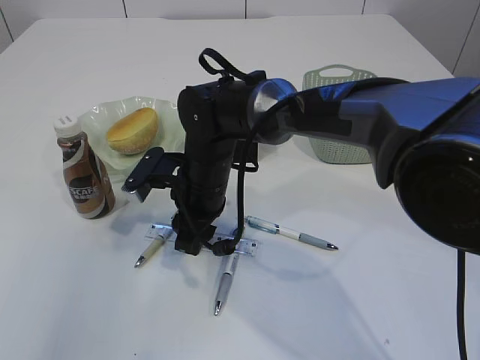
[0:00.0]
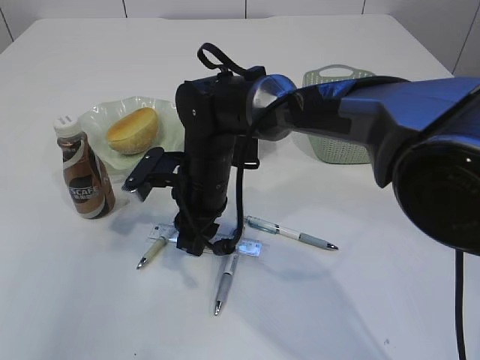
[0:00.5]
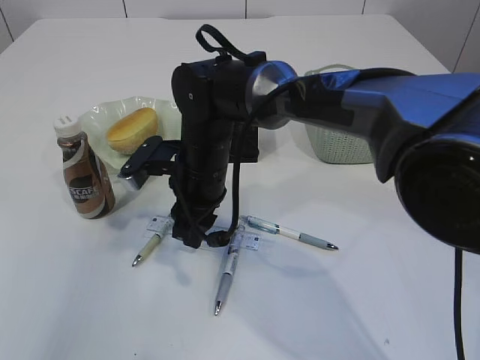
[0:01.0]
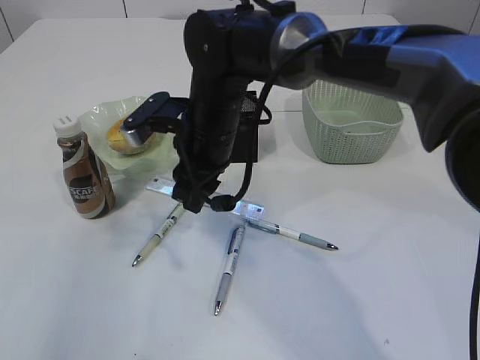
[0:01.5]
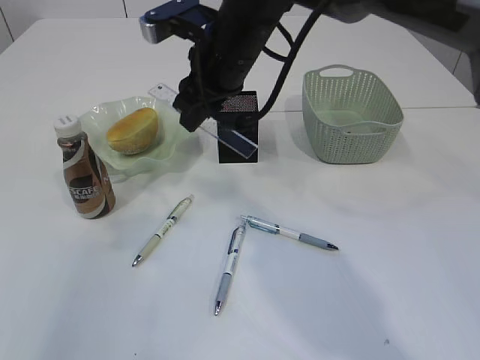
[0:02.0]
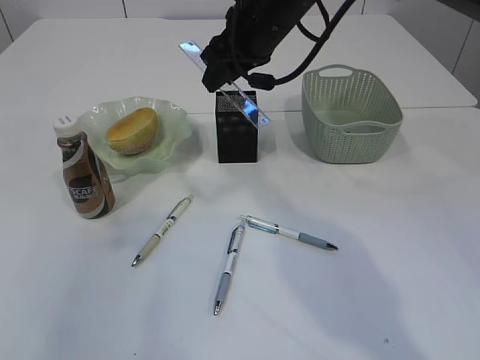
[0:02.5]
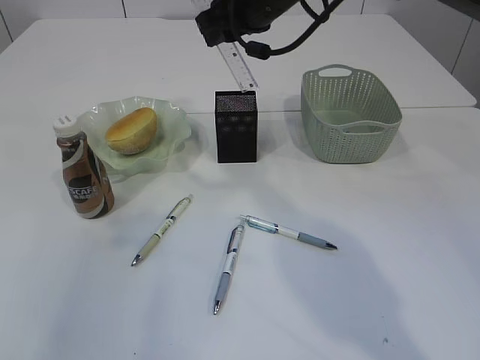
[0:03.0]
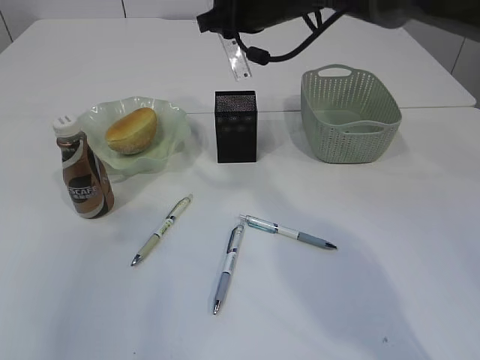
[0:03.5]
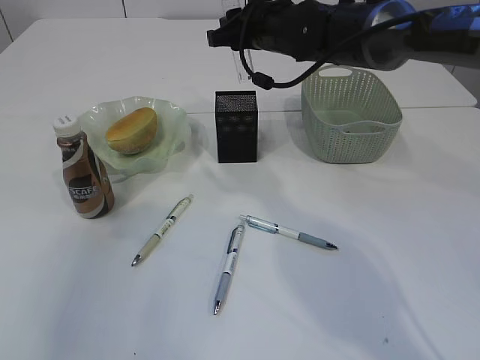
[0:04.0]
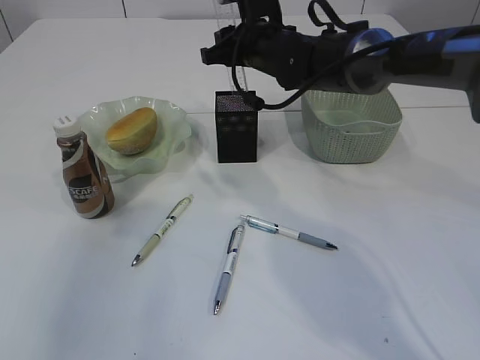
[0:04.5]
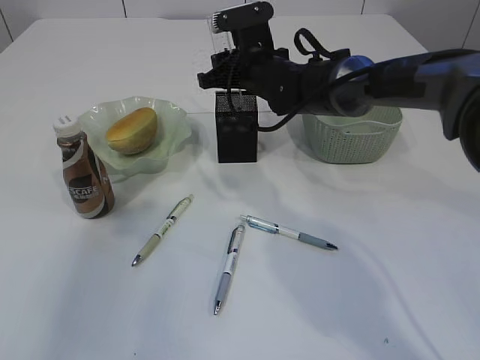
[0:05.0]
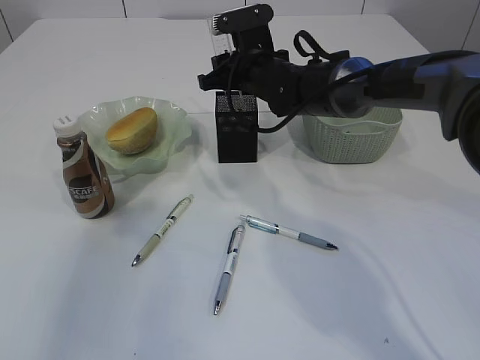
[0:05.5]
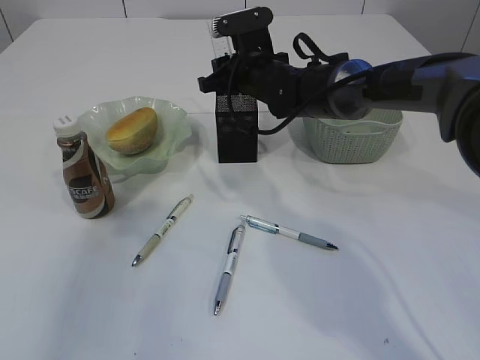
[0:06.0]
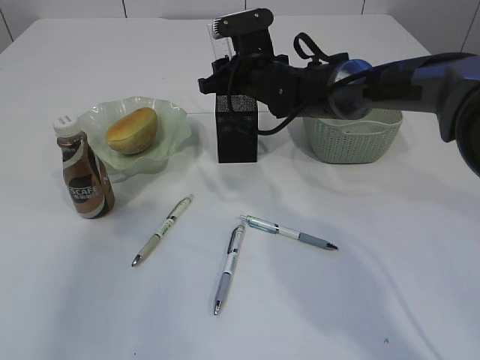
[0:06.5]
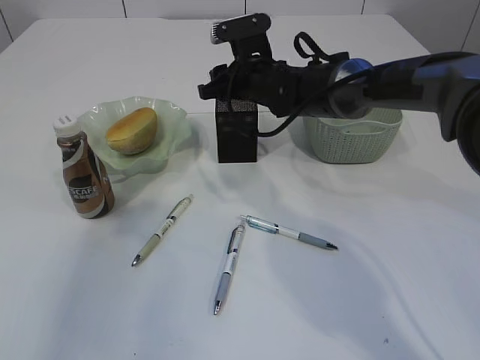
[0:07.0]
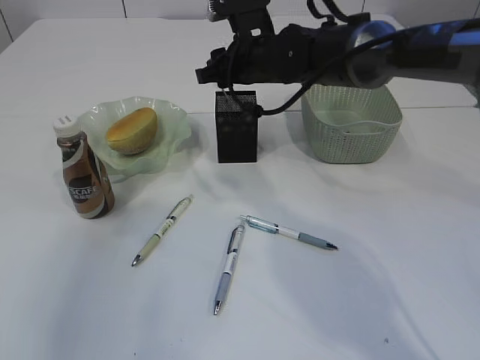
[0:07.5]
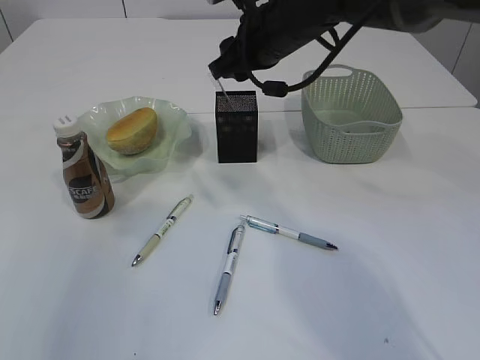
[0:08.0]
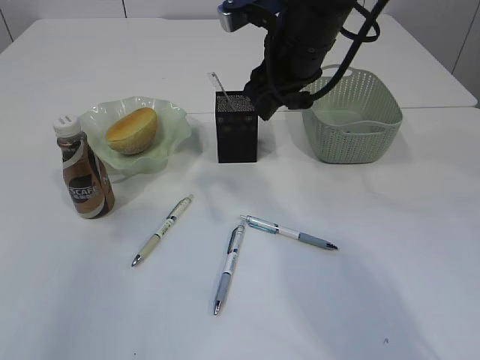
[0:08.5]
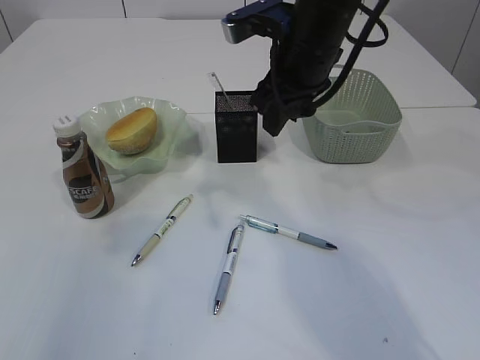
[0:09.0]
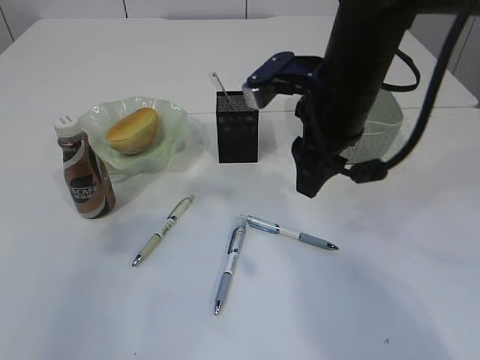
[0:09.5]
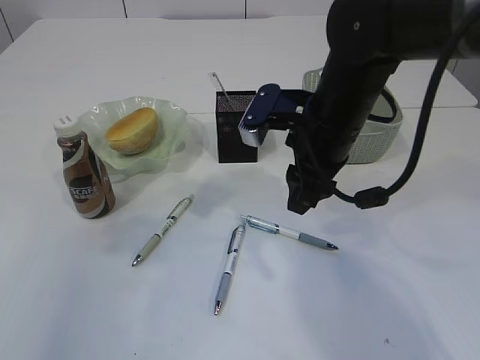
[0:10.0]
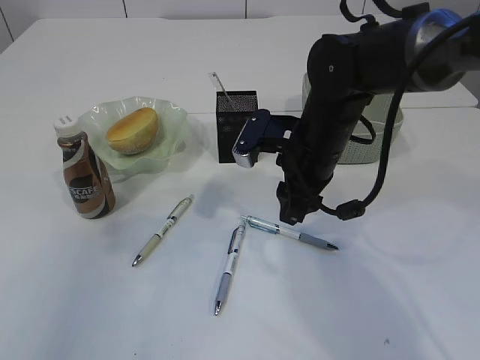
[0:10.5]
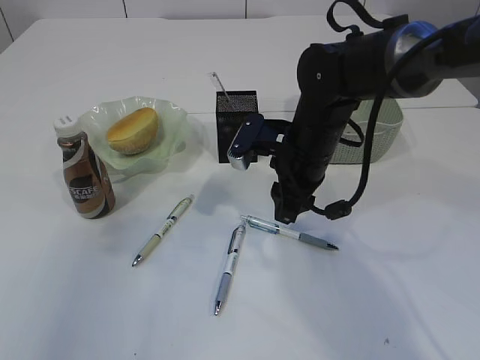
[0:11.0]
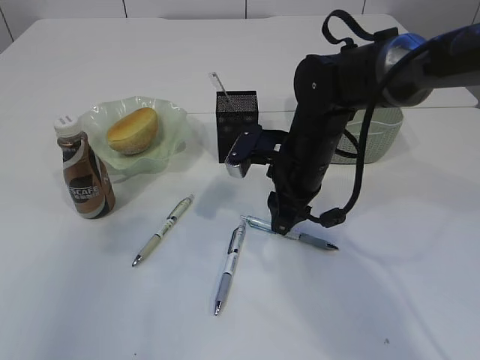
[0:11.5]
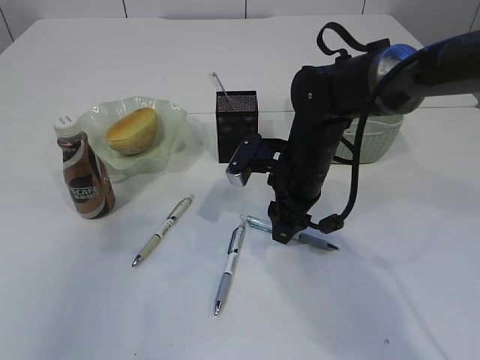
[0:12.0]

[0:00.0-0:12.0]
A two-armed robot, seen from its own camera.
Step, 0:02.0 to 0:07.5: Place the ruler into the pen holder.
0:00.0 to 0:02.0: The right gripper goes about 15 cm upward.
0:02.0 to 0:04.0: The right gripper is displaced forward and to the right by some 10 cm.
0:04.0 to 0:06.0: The right gripper goes about 5 cm downward.
0:06.0 to 0:08.0: The right gripper is displaced upward and backward by about 10 cm.
0:08.0 to 0:10.0: The right gripper is displaced backward by approximately 10 cm.
0:10.0 to 0:12.0: The right gripper shifts about 10 cm downward.

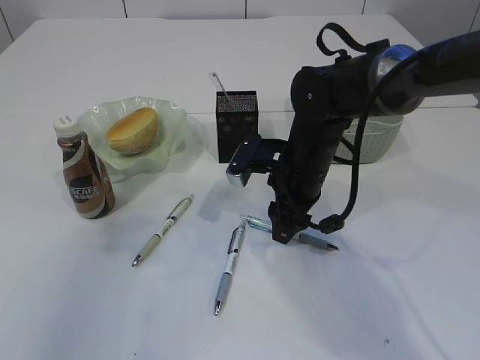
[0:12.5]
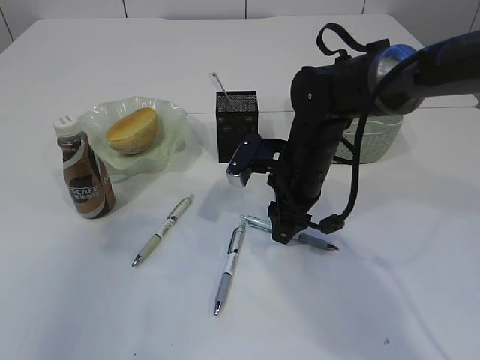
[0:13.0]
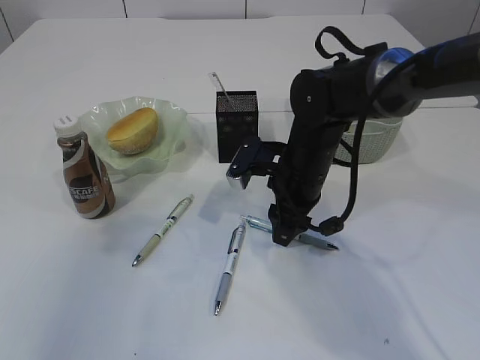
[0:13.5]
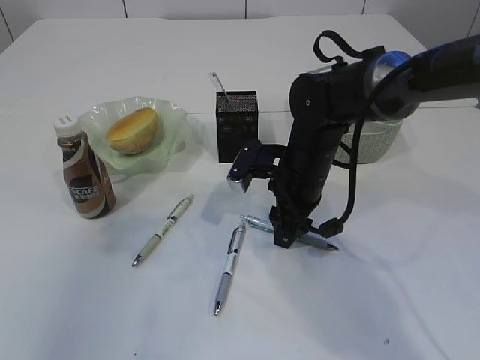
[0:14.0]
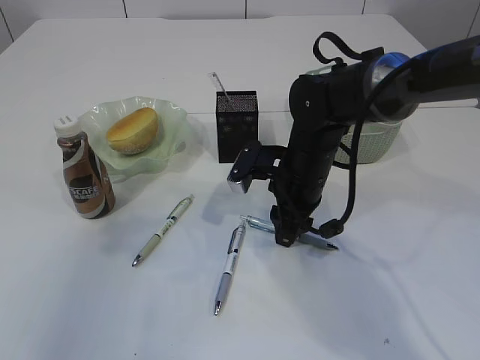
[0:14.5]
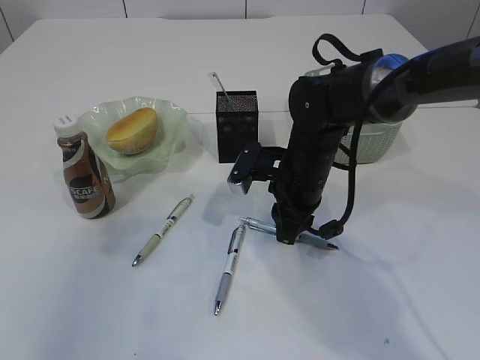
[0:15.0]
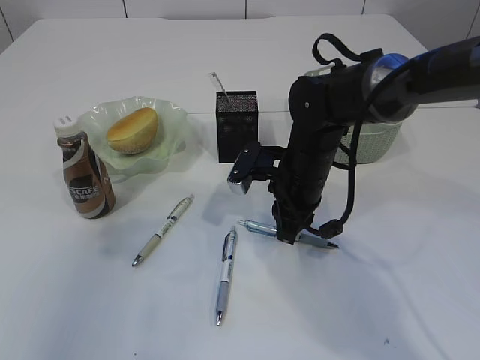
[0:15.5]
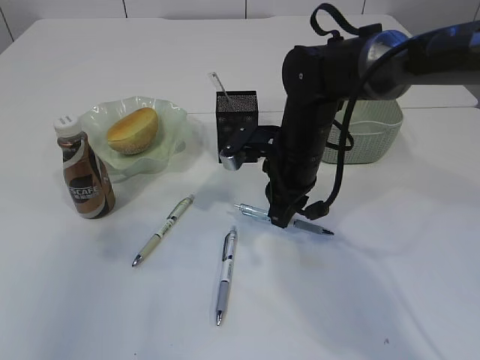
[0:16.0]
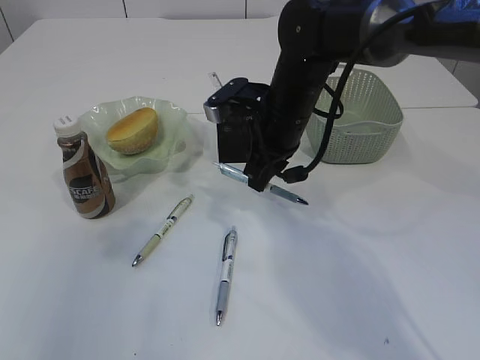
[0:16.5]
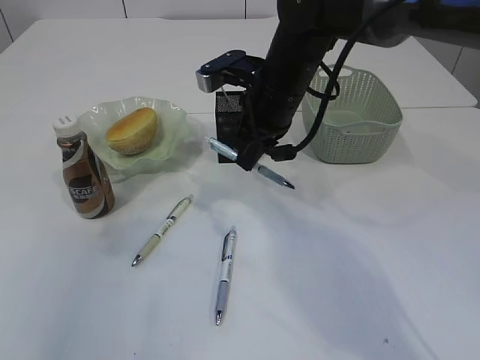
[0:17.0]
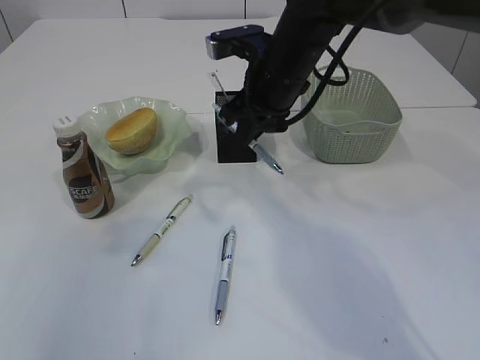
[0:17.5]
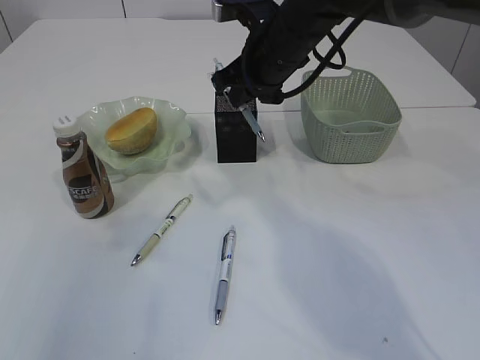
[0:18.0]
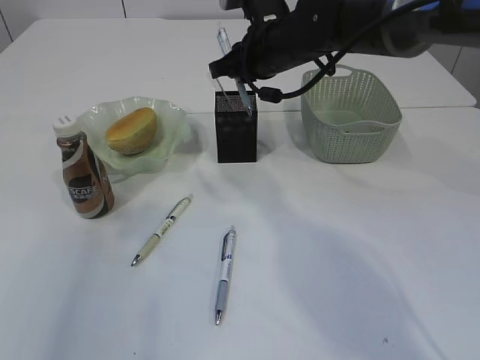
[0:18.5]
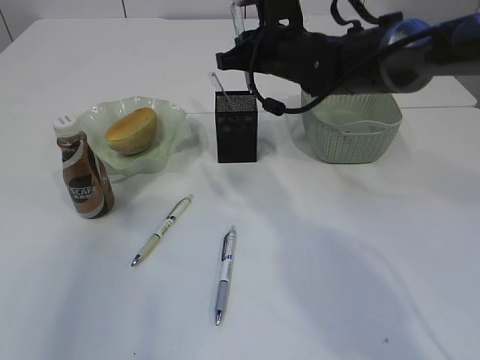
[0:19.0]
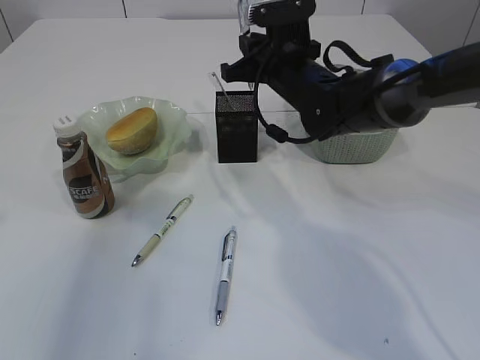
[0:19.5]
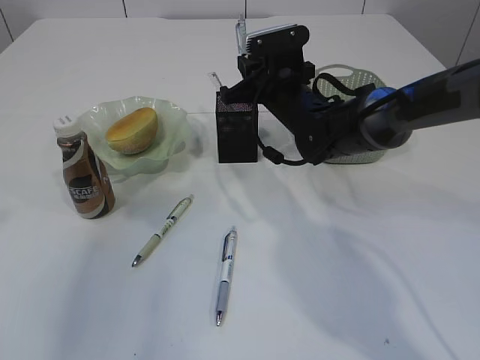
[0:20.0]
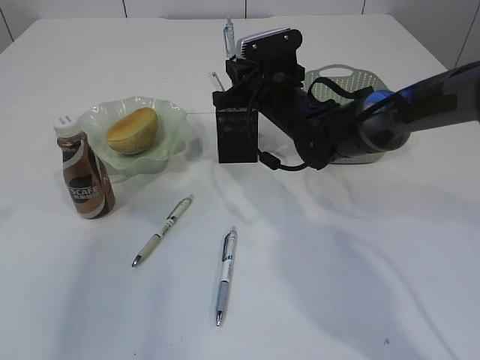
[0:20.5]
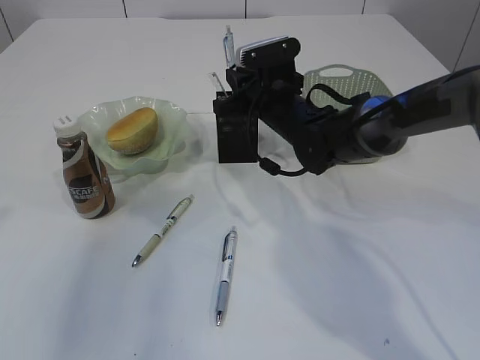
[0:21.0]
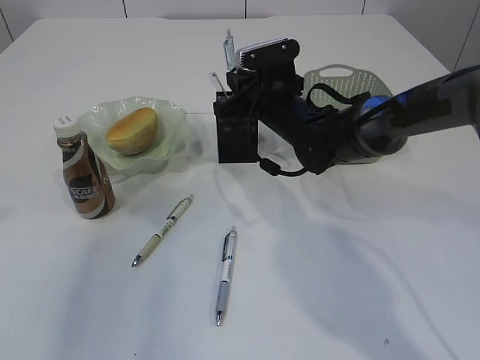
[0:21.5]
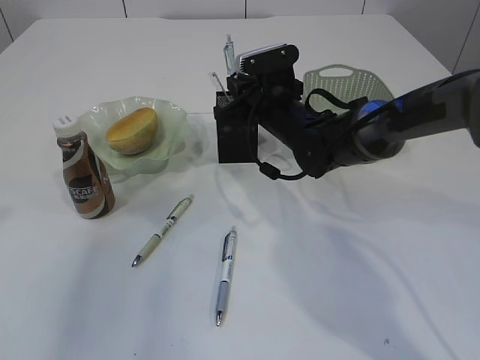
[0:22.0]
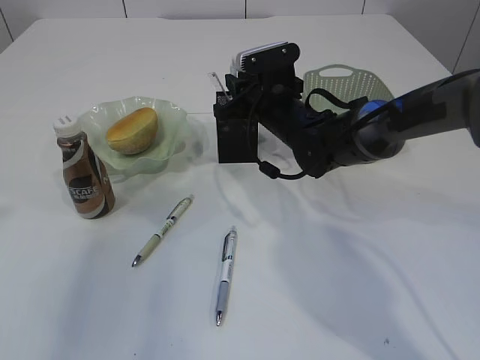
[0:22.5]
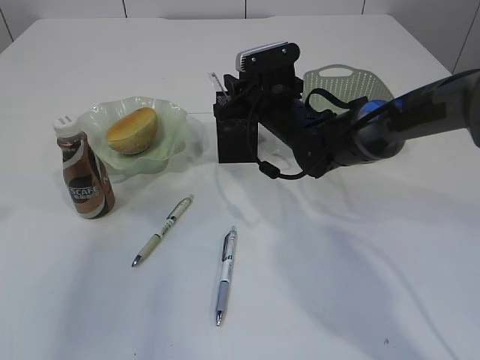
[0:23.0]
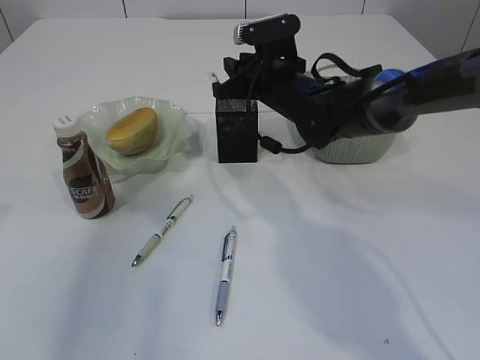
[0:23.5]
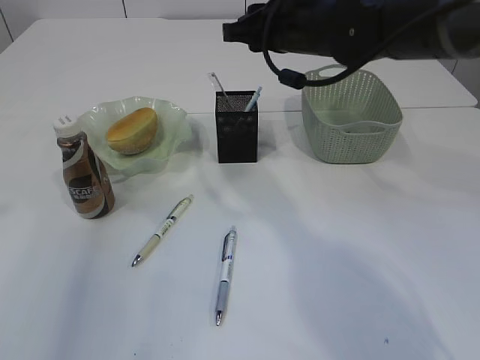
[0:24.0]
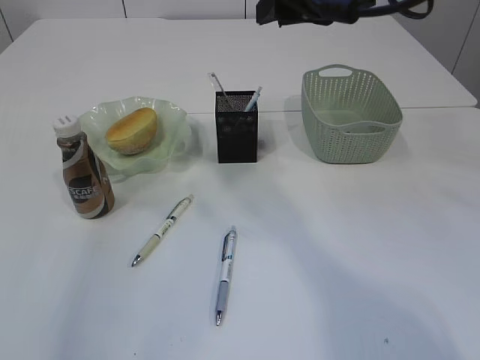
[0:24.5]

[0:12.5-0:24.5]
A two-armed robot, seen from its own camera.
Step, 0:12.5 to 0:17.0: Pick up the pen with right arm.
Step, 0:17.5 to 0:23.5: Place the pen into the pen holder.
0:12.5 to 0:14.5: Both grippers stay put.
0:14.5 to 0:16.5: The right gripper heads upward, covering about 5 cm, and closes up.
0:16.5 to 0:18.5: The right gripper travels forward and upward by approximately 5 cm.
0:18.5 to 0:20.5: The right gripper travels downward by approximately 10 cm.
0:20.5 to 0:22.5: The grippers make only small movements.
0:22.5 to 0:24.5: The right gripper heads upward and backward, covering approximately 20 cm.

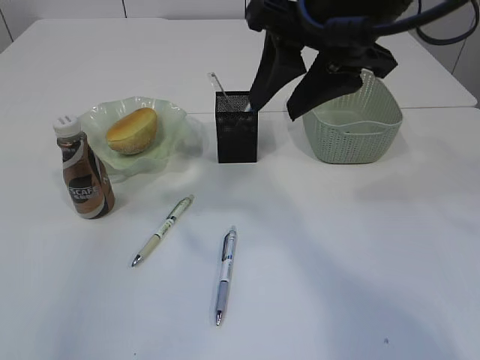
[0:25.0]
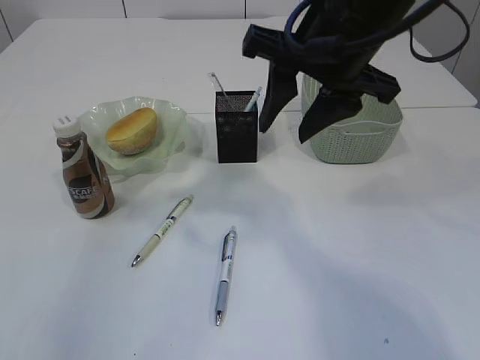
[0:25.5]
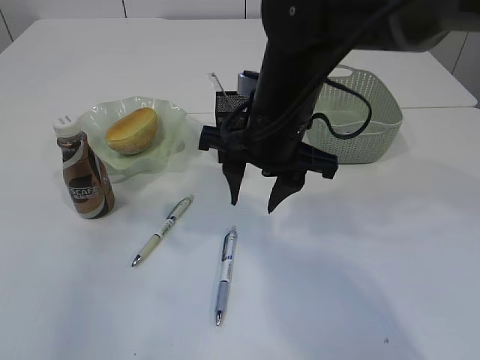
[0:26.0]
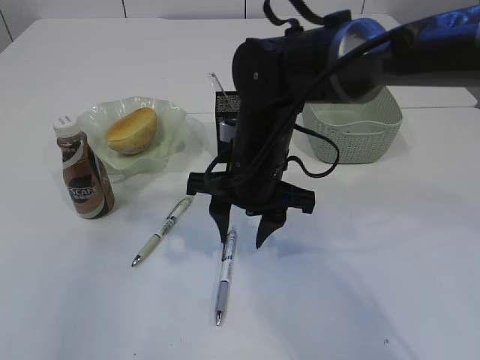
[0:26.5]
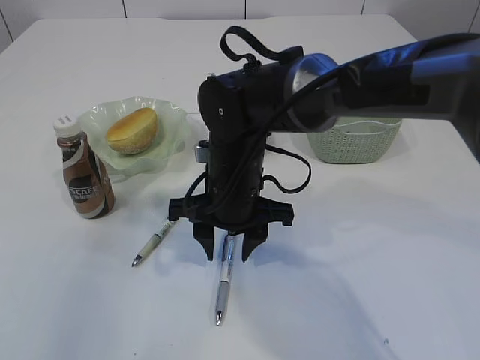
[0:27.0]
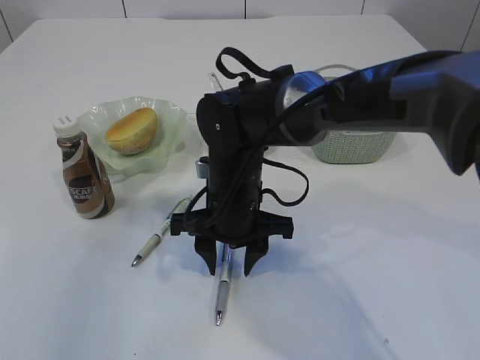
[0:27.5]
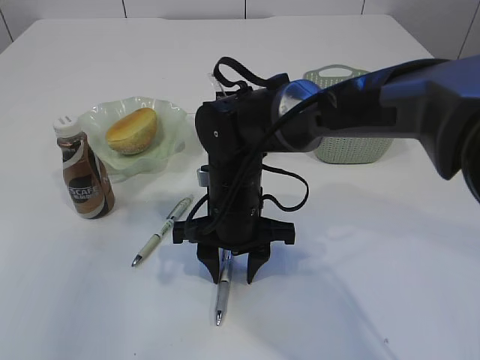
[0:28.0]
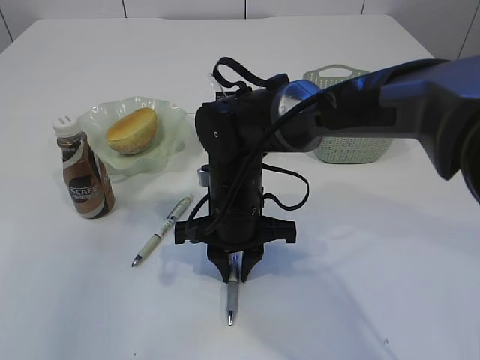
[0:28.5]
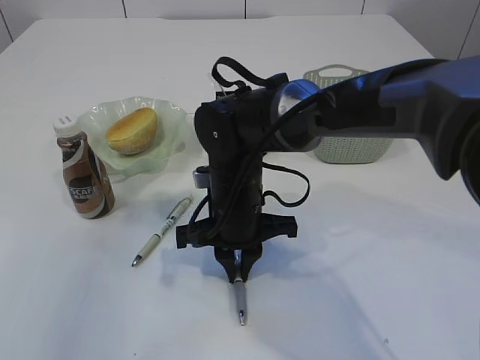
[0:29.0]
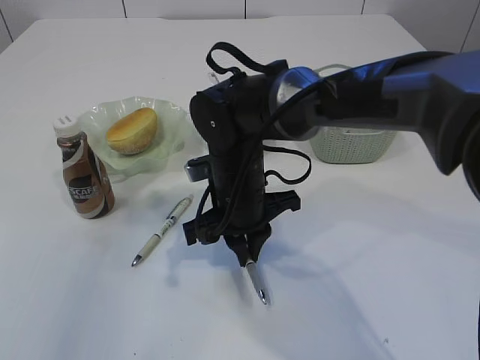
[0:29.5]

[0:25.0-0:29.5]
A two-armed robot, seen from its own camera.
0:25.0 to 0:27.0: The right gripper shifts about 25 cm downward and to the left.
0:27.0 to 0:29.5: The right gripper closes its fingers.
